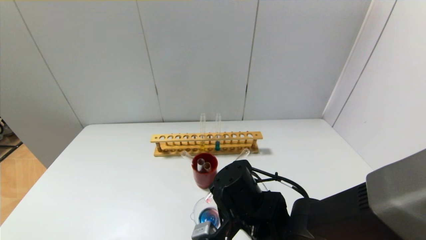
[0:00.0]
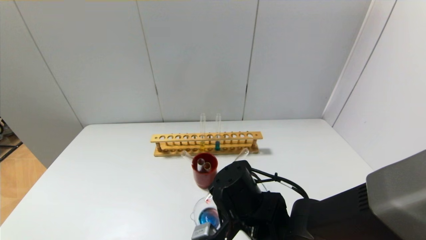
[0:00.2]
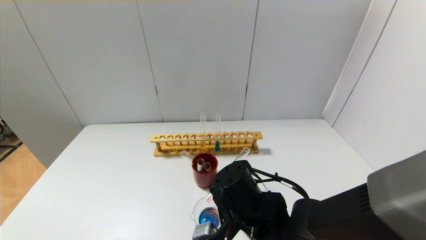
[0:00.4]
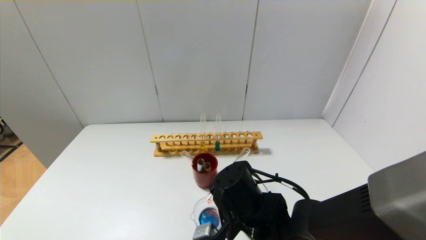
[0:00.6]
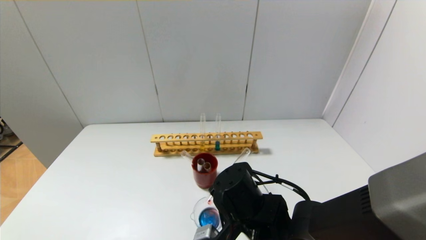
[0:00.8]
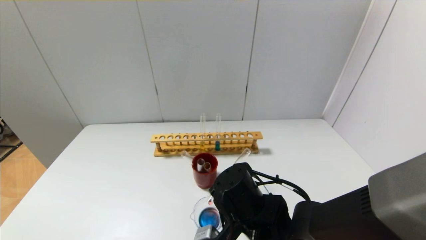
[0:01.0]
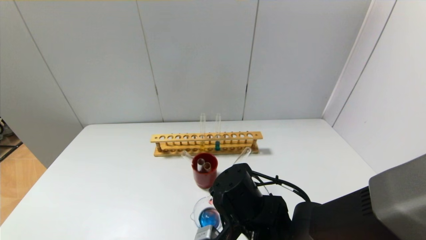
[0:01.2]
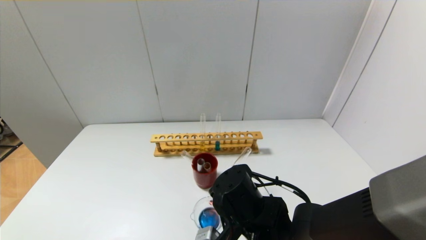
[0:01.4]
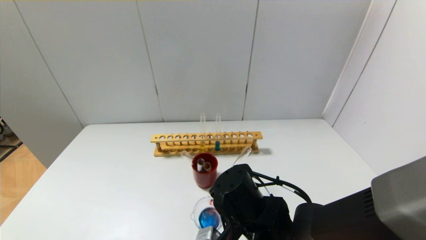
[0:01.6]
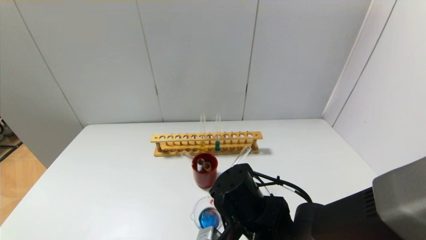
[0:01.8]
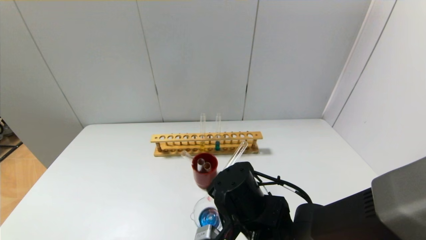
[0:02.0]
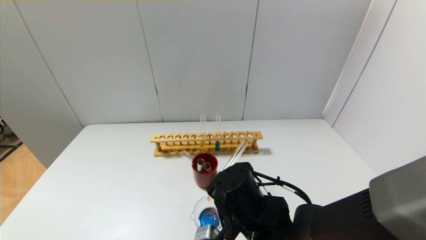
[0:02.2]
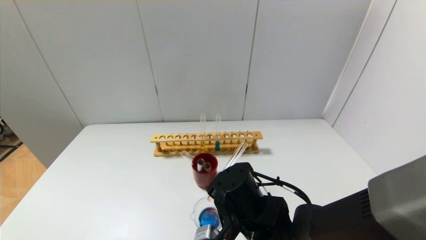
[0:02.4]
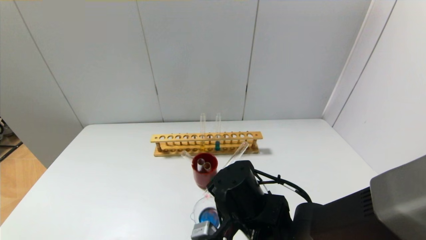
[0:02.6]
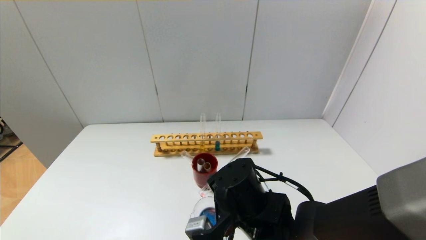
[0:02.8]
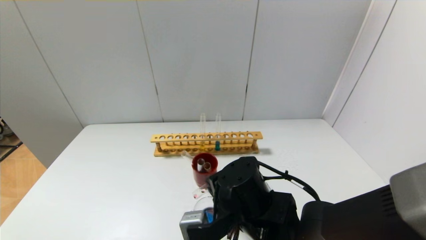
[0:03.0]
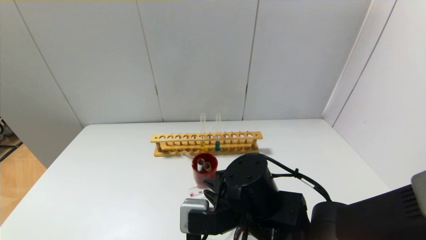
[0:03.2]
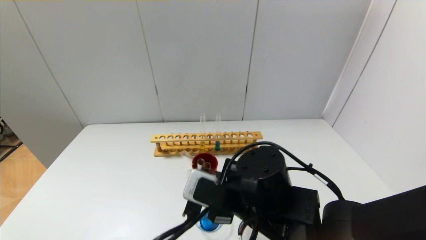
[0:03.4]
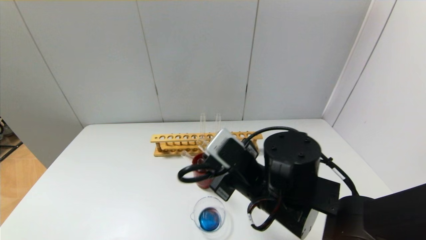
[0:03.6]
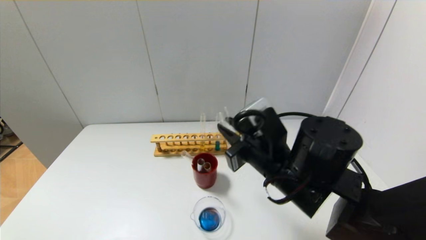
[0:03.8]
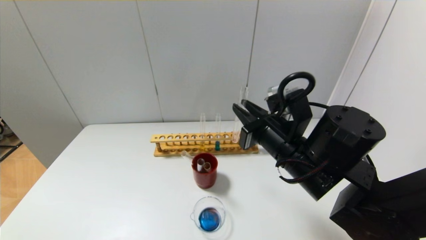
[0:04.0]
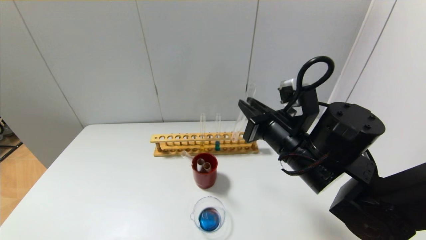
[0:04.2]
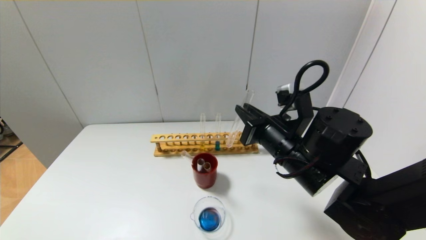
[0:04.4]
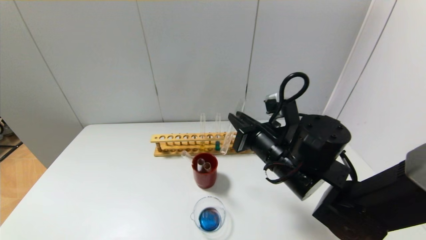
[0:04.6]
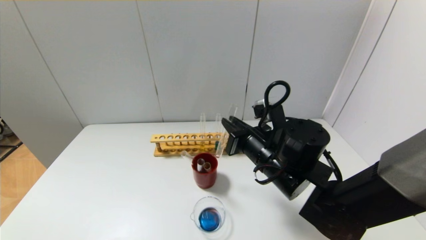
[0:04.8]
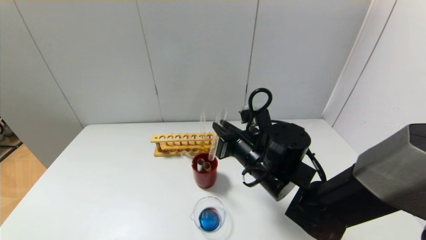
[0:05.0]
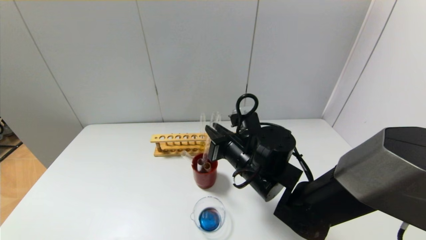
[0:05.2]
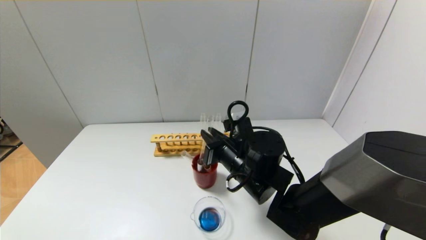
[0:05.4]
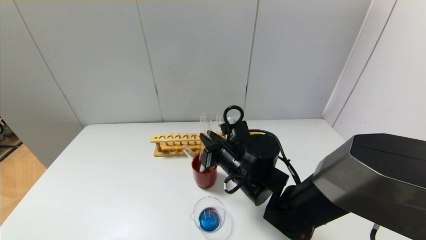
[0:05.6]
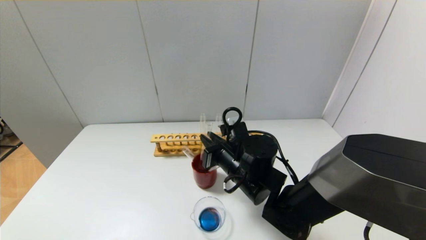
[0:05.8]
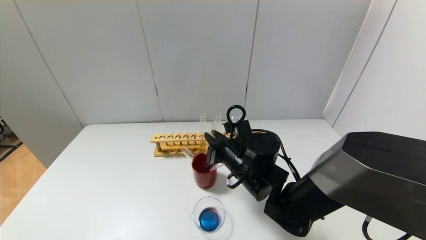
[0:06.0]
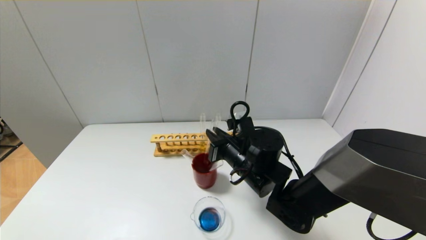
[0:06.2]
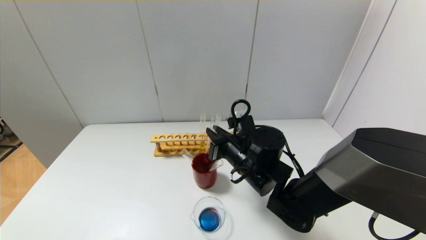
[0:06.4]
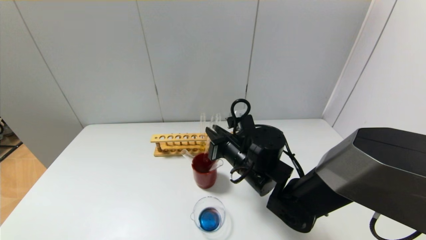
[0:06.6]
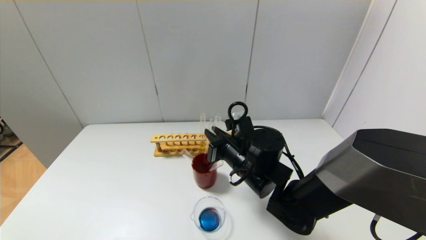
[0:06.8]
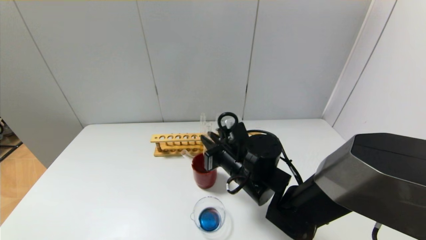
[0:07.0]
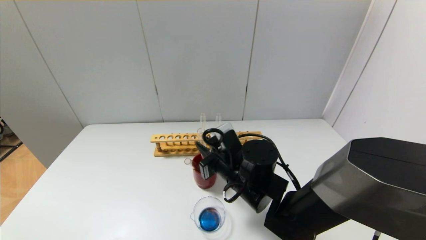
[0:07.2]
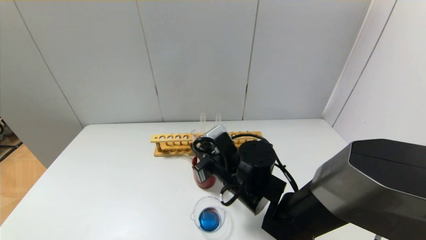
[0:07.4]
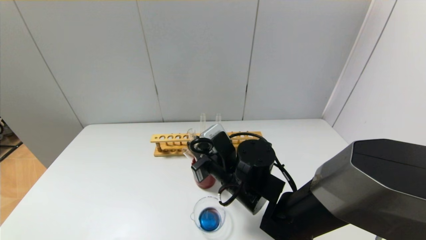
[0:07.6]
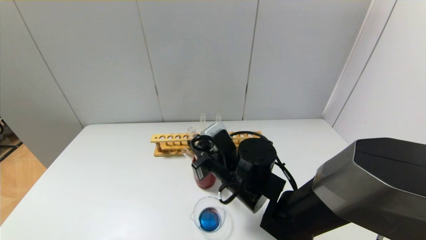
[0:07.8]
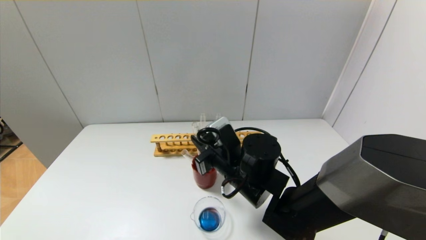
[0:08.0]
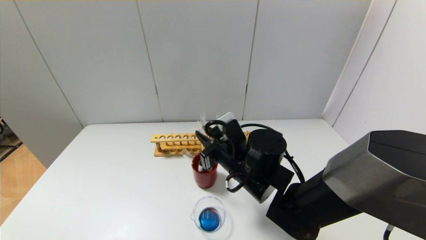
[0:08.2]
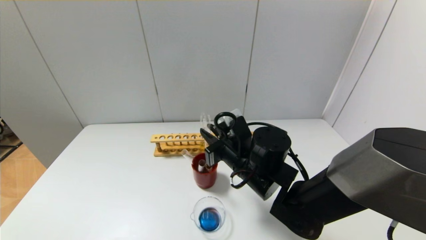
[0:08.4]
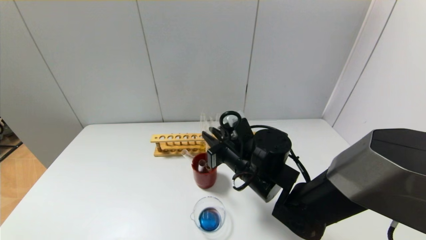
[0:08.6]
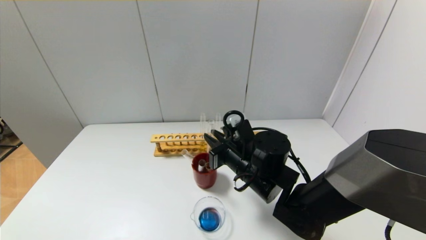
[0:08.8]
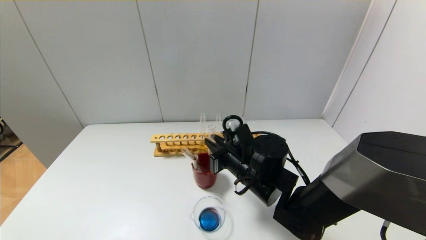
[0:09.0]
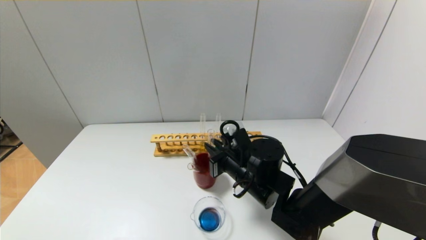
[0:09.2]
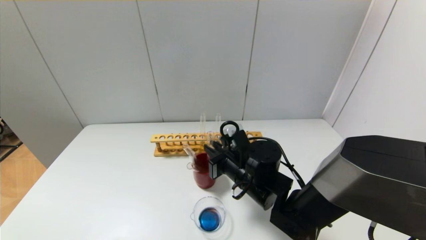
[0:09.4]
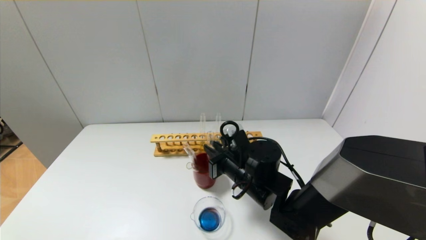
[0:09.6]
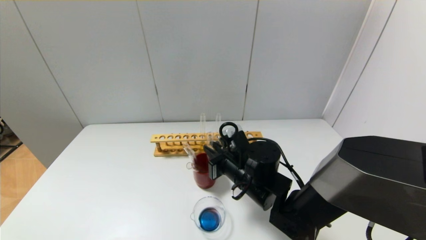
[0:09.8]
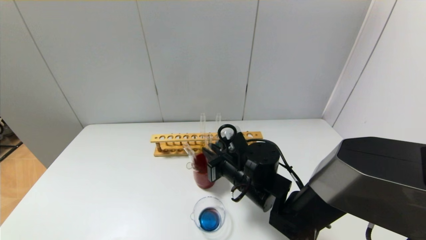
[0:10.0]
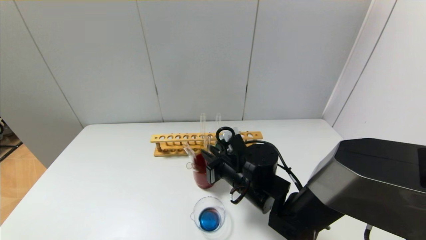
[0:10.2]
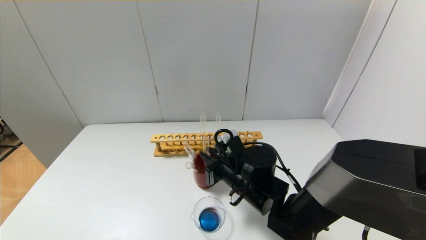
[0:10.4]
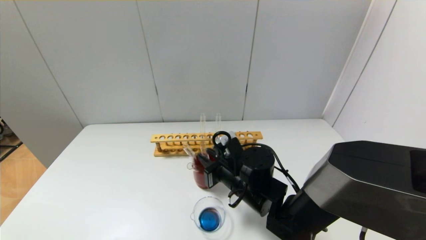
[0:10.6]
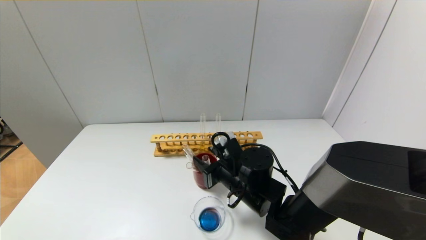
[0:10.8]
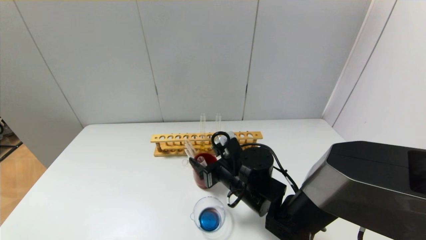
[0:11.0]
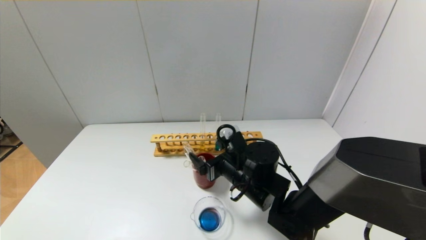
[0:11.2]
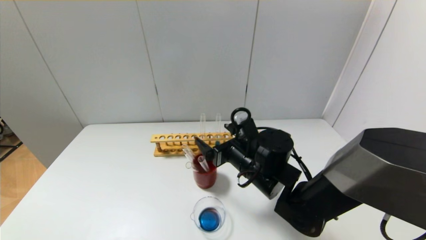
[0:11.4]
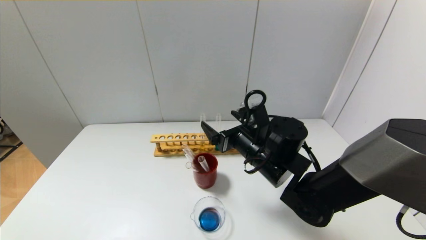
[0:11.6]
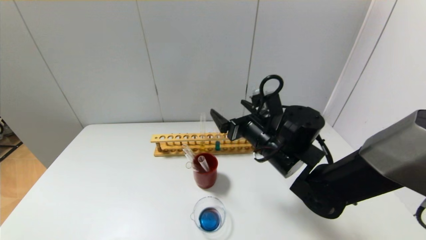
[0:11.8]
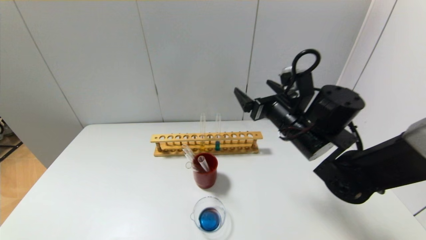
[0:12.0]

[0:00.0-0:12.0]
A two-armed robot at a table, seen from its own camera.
Step, 0:00.0 to 0:02.6: Pour the red reagent into the graduated cylinder with the right gripper.
Step, 0:02.8 to 0:11.4: Place the test tube into the brown cup with the right gripper.
0:00.0 to 0:01.6: The grippers move only a little.
0:03.0 to 0:04.4: The right gripper shifts some 10 cm to the right, upward and forward.
0:04.4 to 0:06.0: The right gripper travels downward and to the left by roughly 10 cm.
0:07.6 to 0:10.4: The grippers stay close to where they were, moving slightly.
0:10.4 to 0:12.0: The right gripper shifts some 15 cm upward and to the right, and opens.

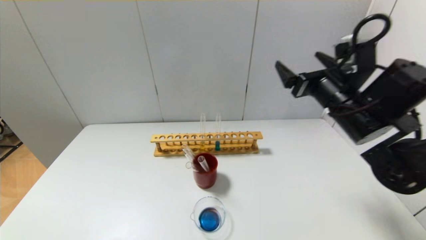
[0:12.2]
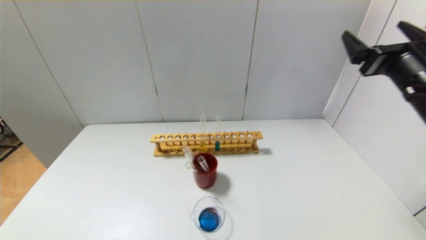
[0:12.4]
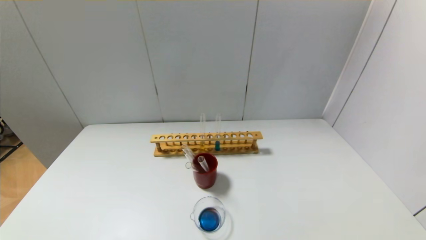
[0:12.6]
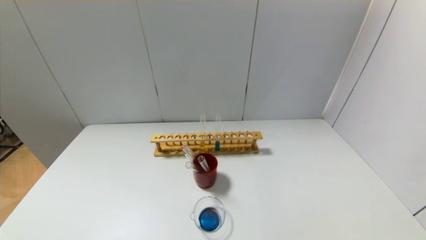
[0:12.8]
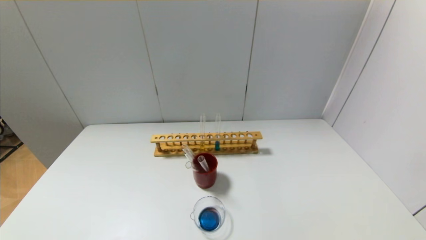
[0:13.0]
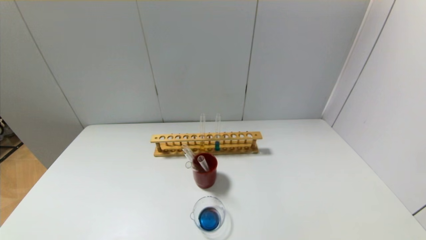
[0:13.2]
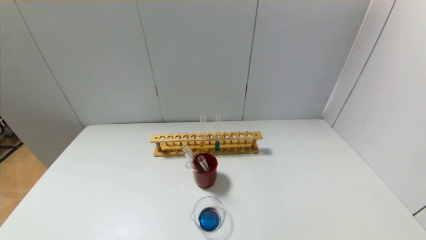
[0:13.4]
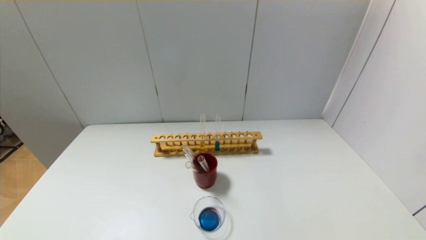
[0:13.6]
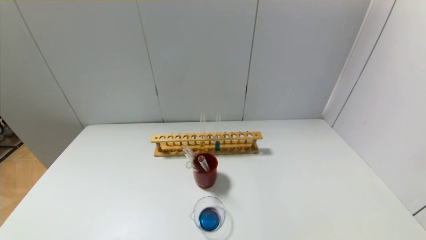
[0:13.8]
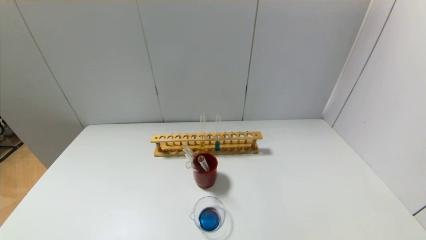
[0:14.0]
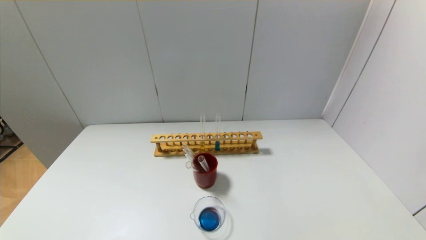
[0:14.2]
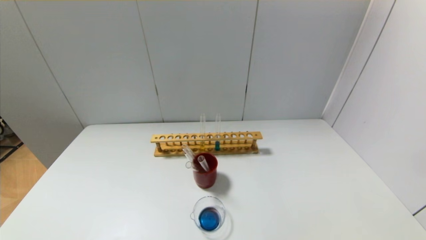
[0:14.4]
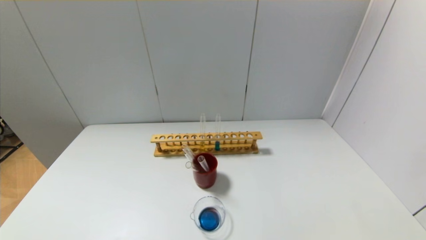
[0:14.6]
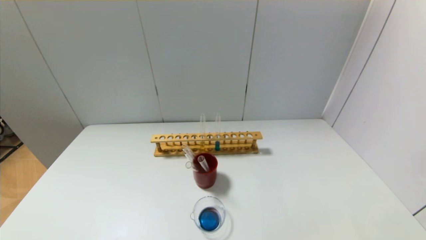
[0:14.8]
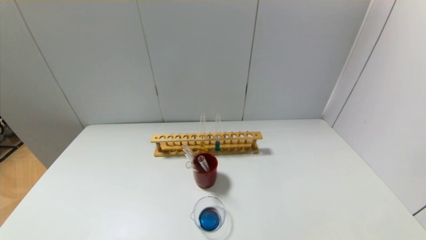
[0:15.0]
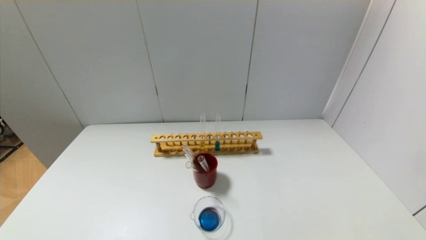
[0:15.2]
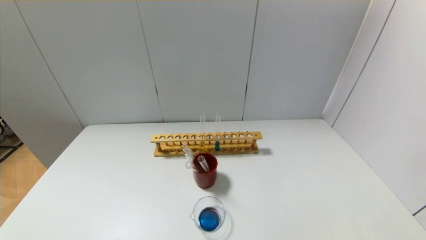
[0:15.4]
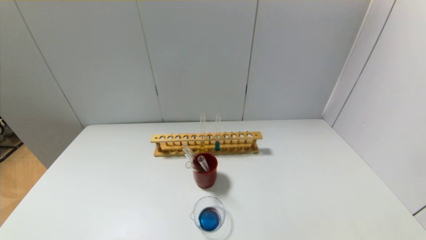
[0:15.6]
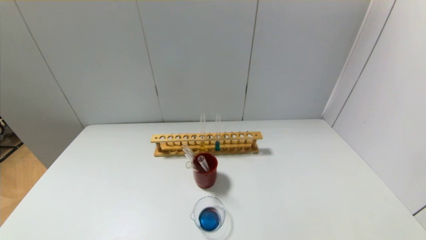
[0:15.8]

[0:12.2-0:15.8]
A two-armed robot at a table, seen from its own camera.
0:12.2 to 0:14.0: The right gripper goes approximately 35 cm backward.

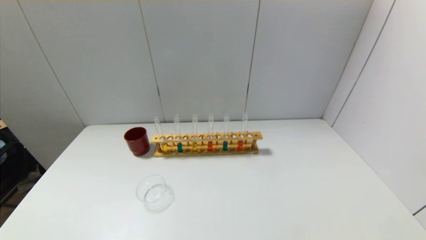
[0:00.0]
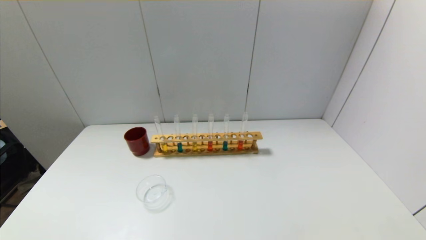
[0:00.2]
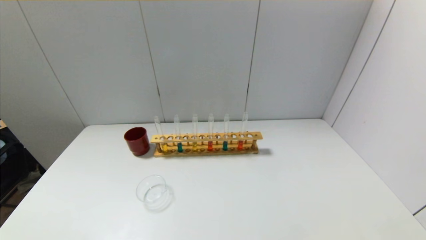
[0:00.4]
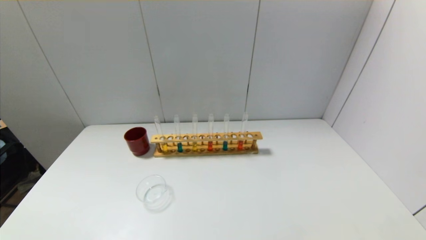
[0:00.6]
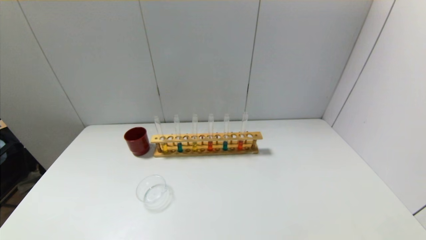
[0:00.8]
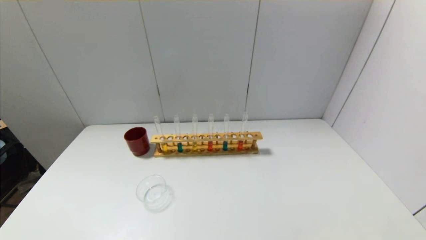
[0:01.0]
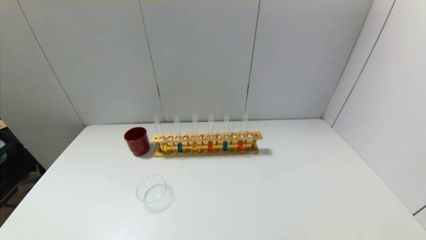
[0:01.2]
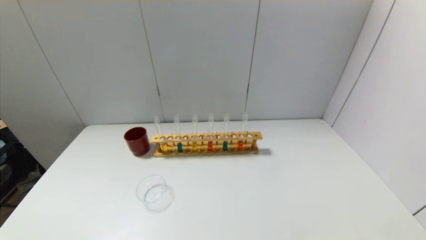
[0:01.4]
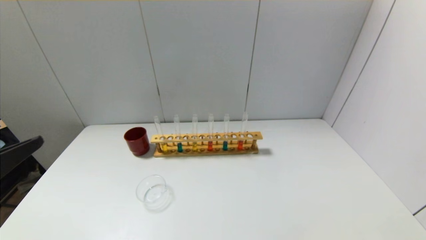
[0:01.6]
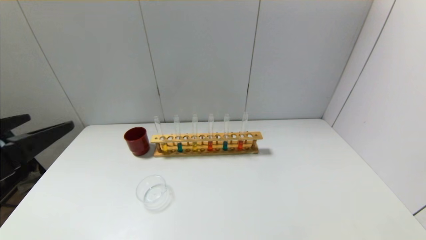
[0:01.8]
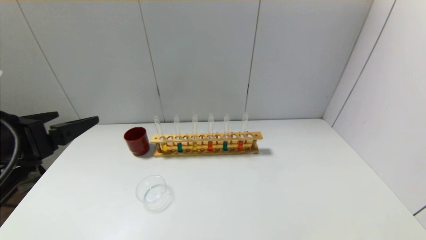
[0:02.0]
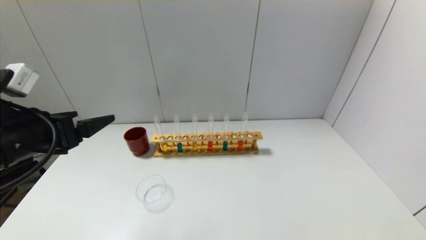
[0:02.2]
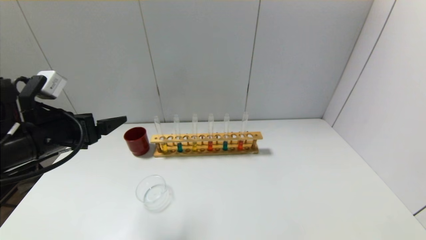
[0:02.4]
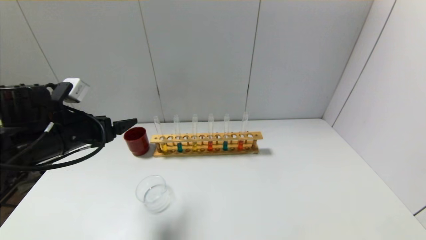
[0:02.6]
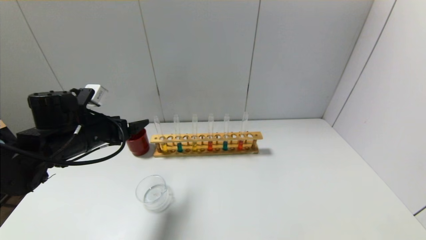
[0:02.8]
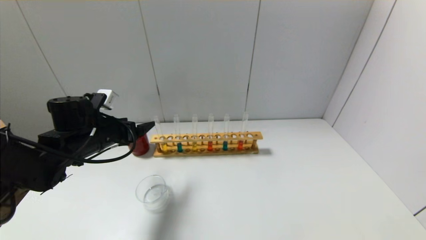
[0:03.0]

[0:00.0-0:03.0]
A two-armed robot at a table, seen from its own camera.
0:01.6 to 0:03.0: The left gripper shifts some 25 cm forward and downward.
